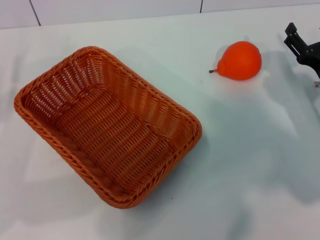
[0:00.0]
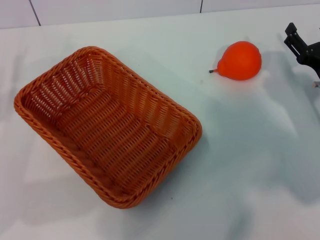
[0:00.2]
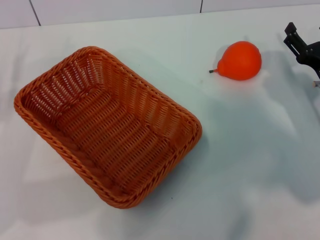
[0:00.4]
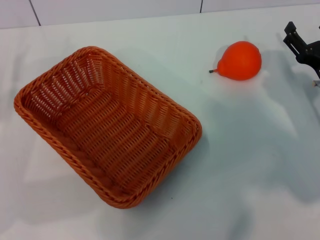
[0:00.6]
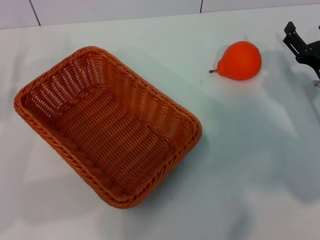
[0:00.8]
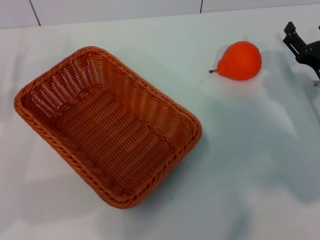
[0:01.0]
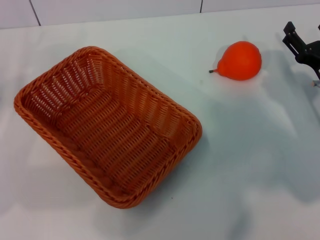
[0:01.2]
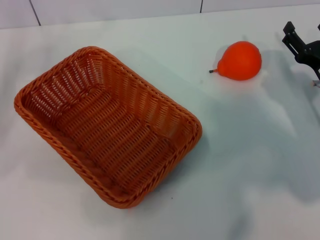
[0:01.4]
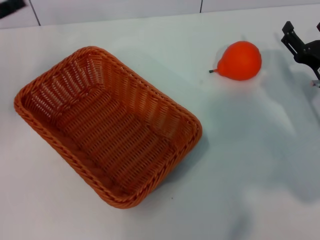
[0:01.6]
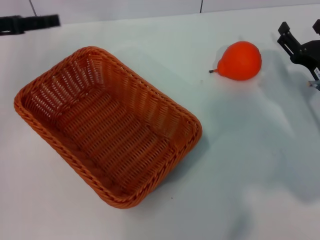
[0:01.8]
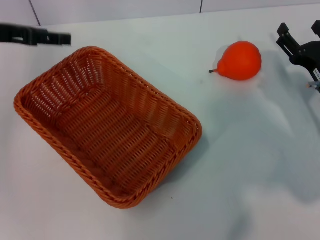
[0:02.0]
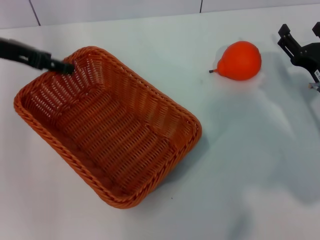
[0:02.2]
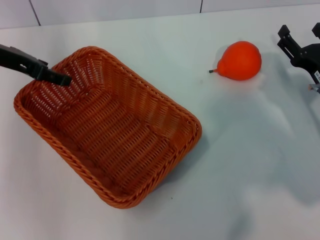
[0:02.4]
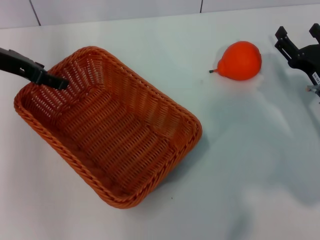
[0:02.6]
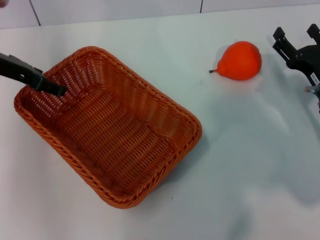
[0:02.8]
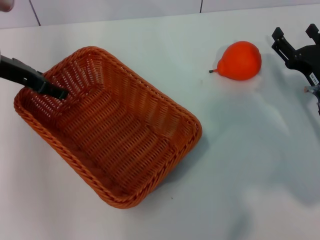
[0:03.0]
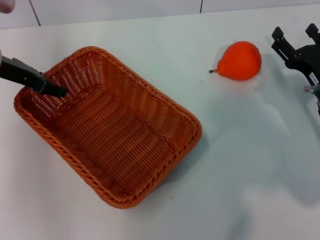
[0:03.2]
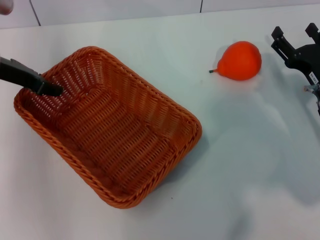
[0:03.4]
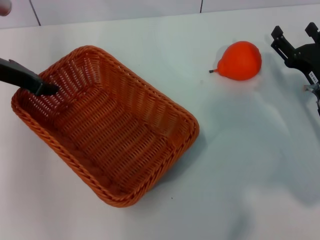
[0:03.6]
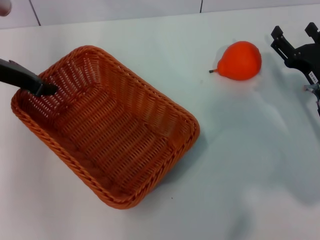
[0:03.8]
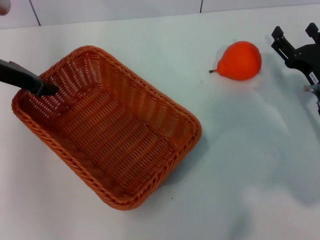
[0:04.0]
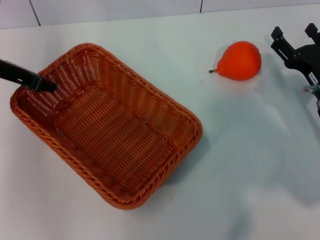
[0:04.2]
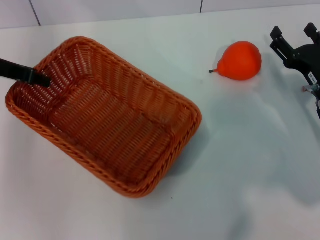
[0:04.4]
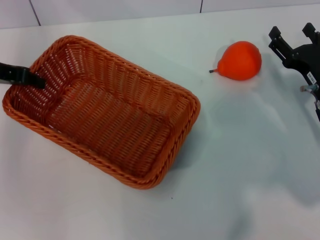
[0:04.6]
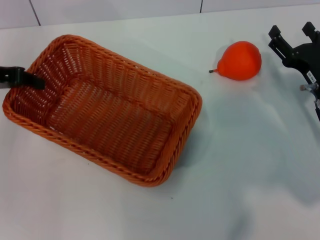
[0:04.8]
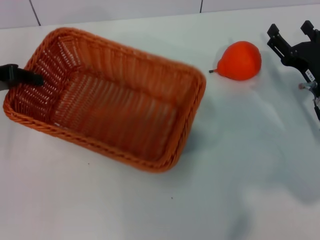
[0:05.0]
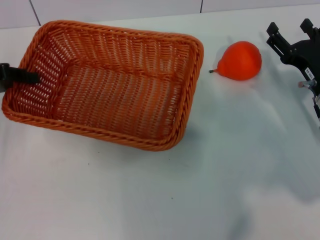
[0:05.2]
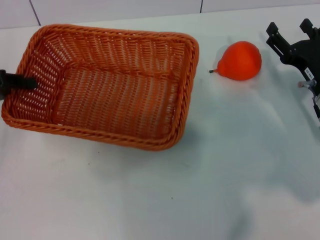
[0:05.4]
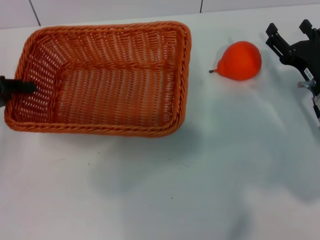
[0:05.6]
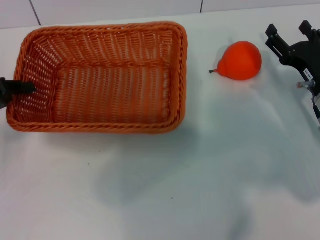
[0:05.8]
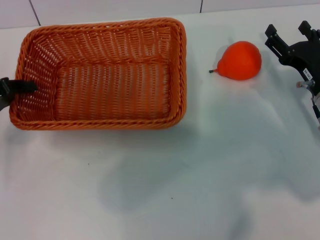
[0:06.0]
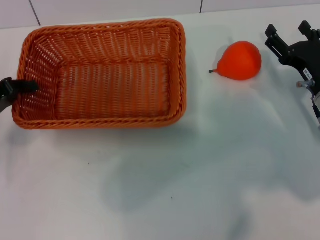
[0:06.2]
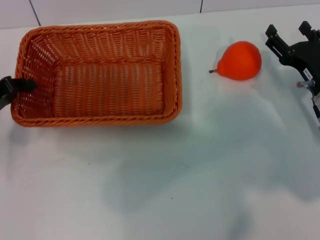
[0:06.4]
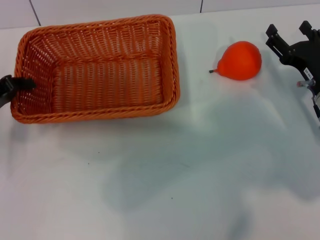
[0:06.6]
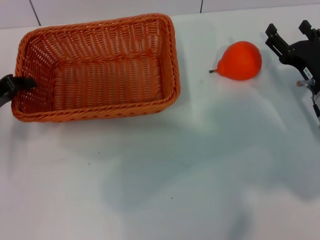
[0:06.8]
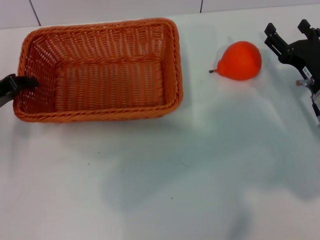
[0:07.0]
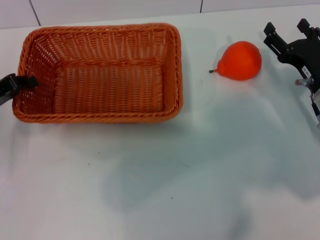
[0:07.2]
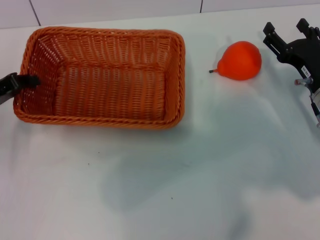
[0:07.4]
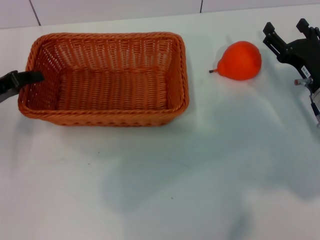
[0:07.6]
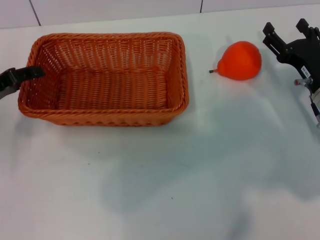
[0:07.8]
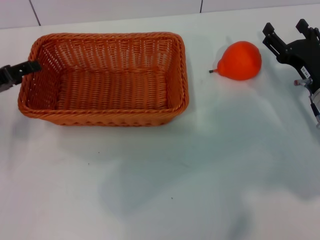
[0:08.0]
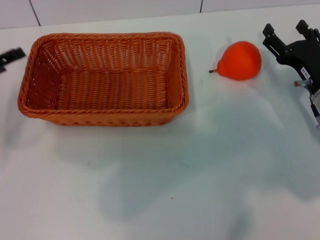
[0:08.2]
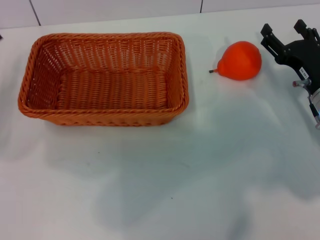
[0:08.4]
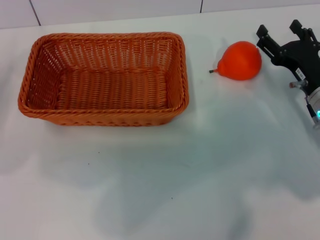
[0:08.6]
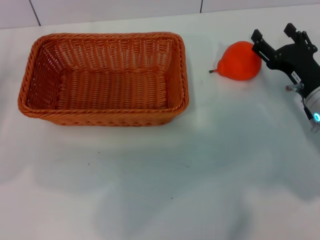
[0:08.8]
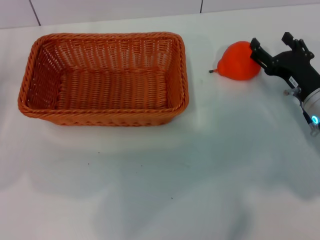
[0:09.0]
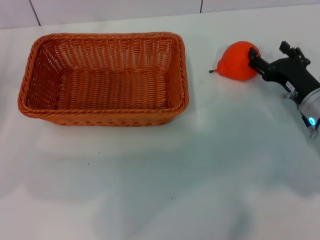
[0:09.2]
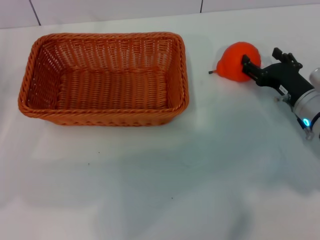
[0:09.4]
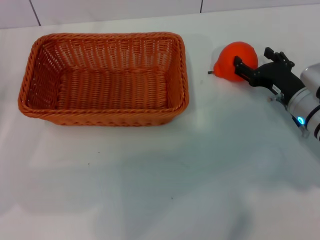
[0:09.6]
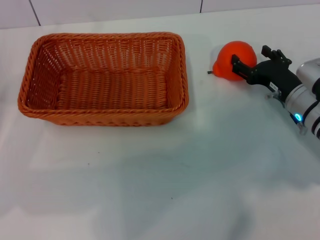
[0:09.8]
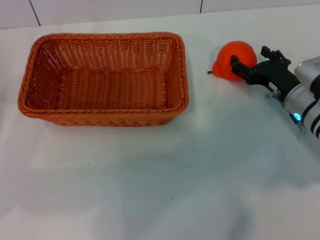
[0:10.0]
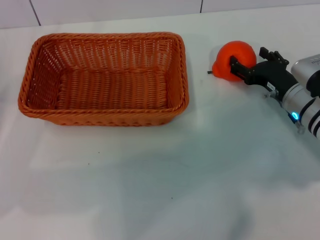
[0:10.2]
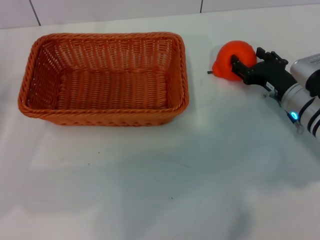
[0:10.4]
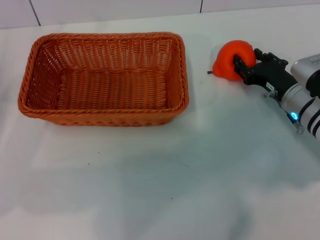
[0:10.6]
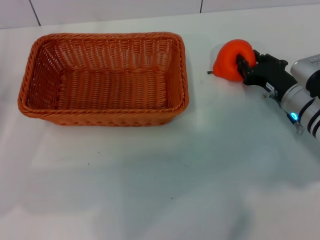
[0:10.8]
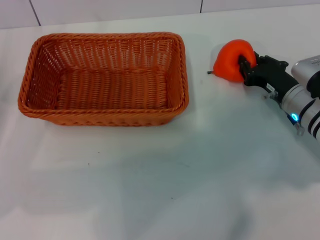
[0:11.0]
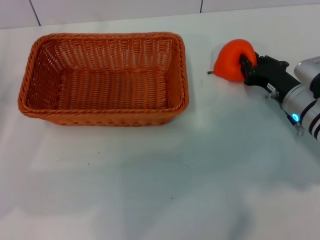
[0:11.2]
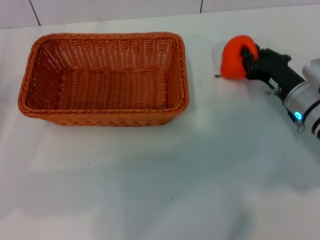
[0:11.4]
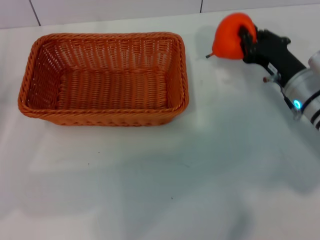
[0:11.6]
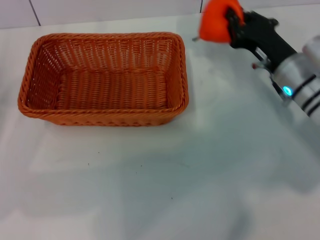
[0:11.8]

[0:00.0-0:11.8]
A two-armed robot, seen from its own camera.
Task of the whole recording: the left gripper pick up the yellow basket and place it horizontally in the middle of the table, the right gripper pick up the orange and place it into the yellow basket.
Step, 0:00.0 to 0:04.8: Pick up the light basket with the left gripper.
Step, 0:05.0 to 0:08.2: Place the light basket in the center of view with the left gripper.
Step, 0:08.4 to 0:11.6: Pick up the orange with the right gripper.
0:00.0 to 0:01.4: The left gripper shifts some 5 cm upward.
0:01.4 to 0:03.0: The left gripper goes some 15 cm to the right and forward.
0:03.0 to 0:04.4: The left gripper closes its fingers.
0:04.4 to 0:06.0: The left gripper heads backward and downward, covering approximately 10 cm.
0:06.0 to 0:07.4: The grippers move only a little.
0:07.4 to 0:08.8: The left gripper ends up roughly 5 cm from where it was, and opens its fingers.
0:08.8 to 0:10.4: The grippers make only small movements.
0:10.4 to 0:11.8: The right gripper moves some 5 cm, and closes its fingers.

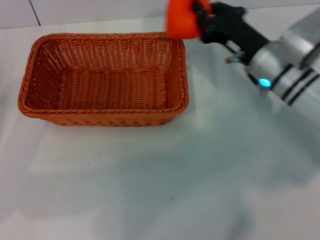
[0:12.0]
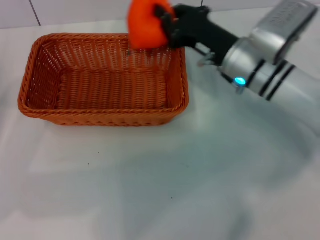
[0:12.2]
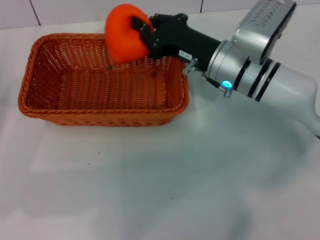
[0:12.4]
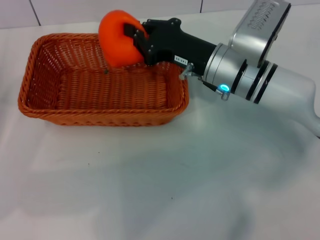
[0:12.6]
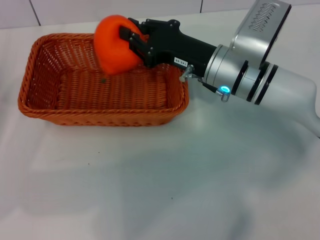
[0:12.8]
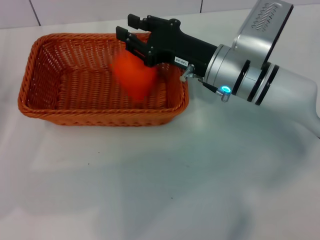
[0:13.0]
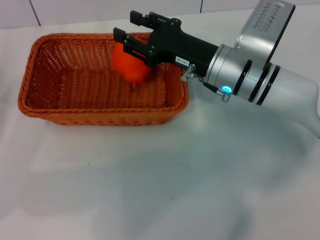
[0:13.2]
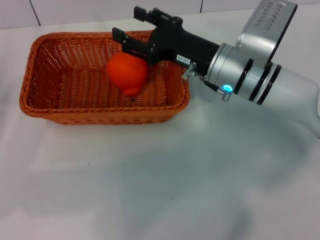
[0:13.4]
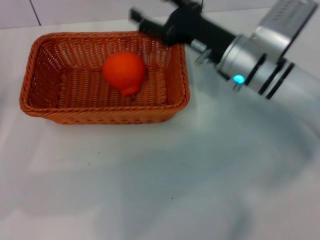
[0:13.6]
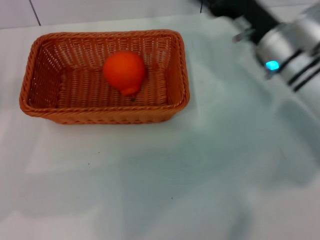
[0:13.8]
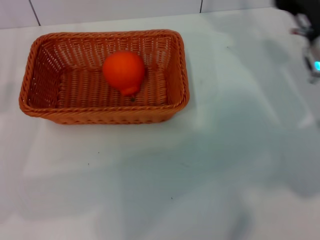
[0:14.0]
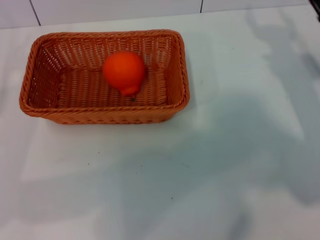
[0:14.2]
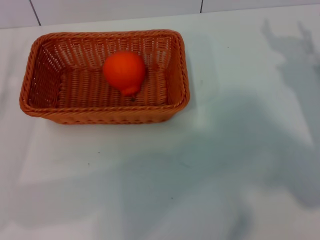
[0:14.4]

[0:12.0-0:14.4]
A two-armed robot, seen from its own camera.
Task of the whole recording: the left gripper pick up the yellow basket and place it horizontally in the middle of the table, the right gripper pick up the orange and place it into the yellow basket.
Step, 0:12.0 to 0:13.4: Place the orange into the light basket with the right gripper.
0:12.0 to 0:13.2: The right gripper is displaced to the left by roughly 5 cm.
0:13.2 to 0:14.4: The right gripper is displaced to the right by about 20 cm, and opens.
